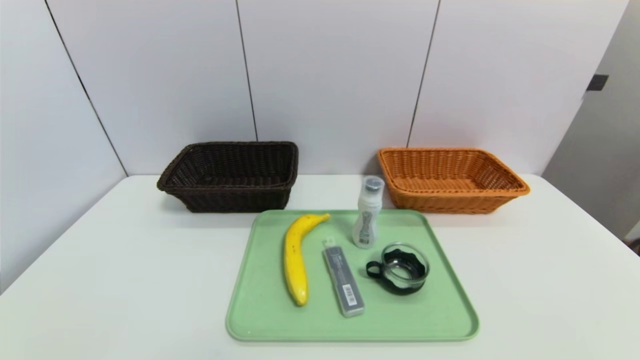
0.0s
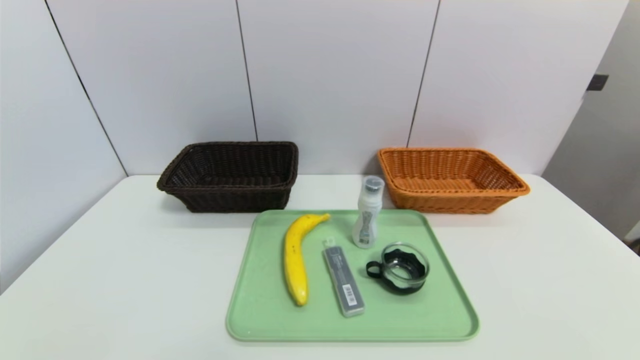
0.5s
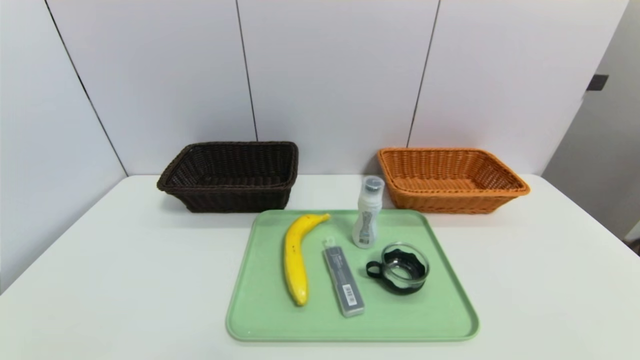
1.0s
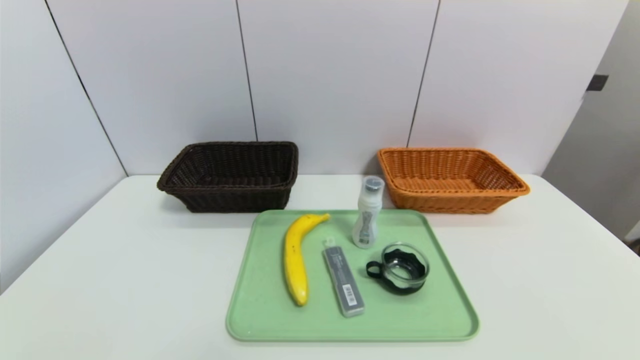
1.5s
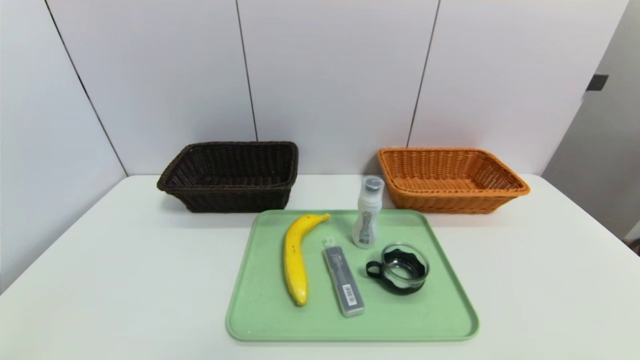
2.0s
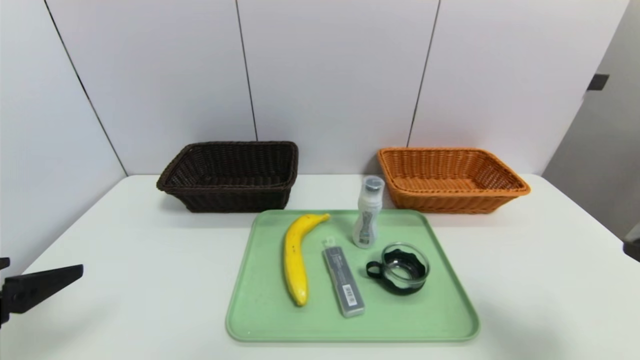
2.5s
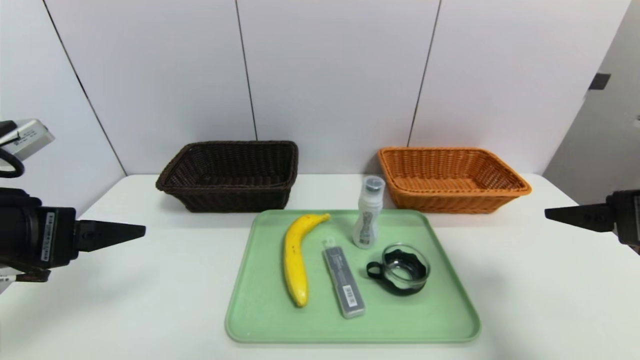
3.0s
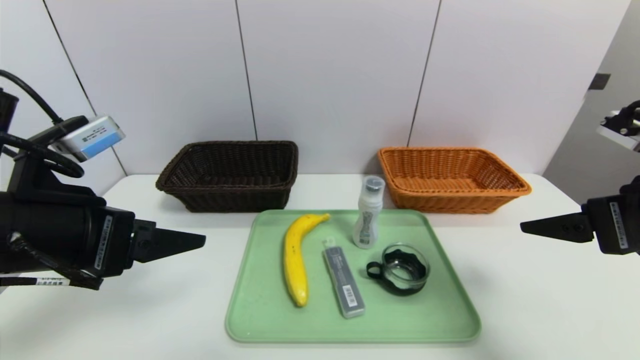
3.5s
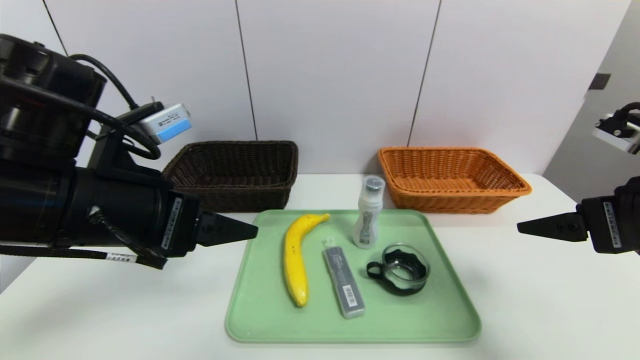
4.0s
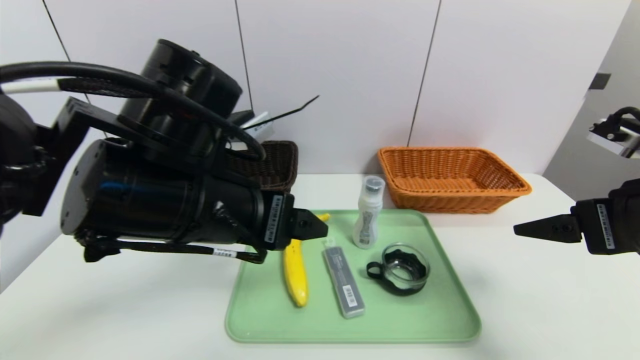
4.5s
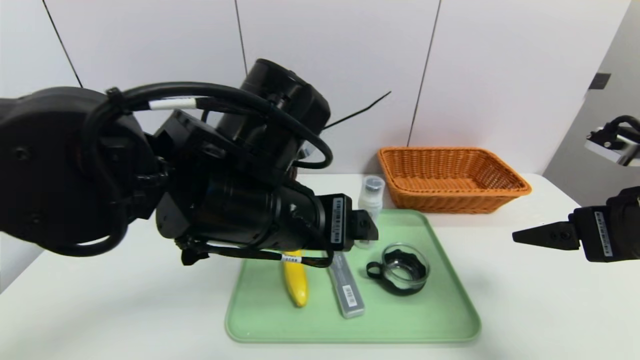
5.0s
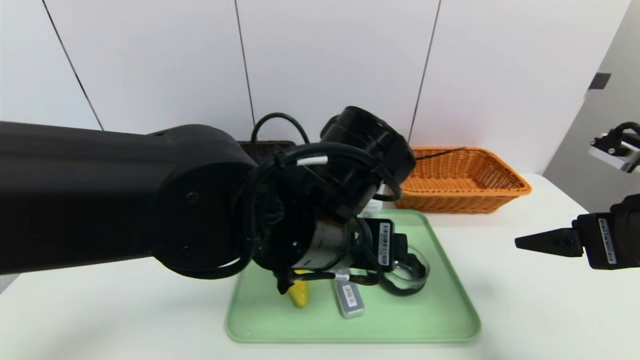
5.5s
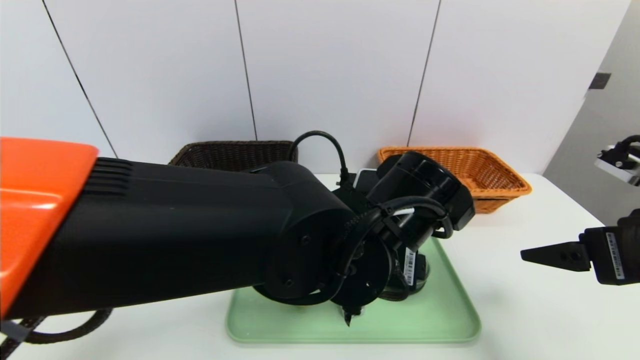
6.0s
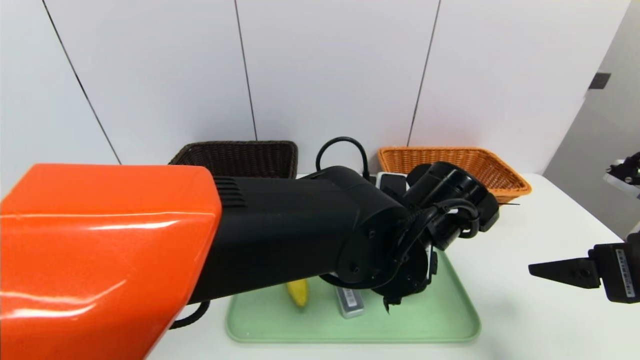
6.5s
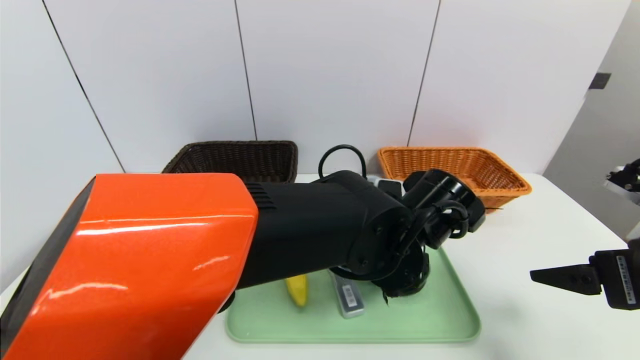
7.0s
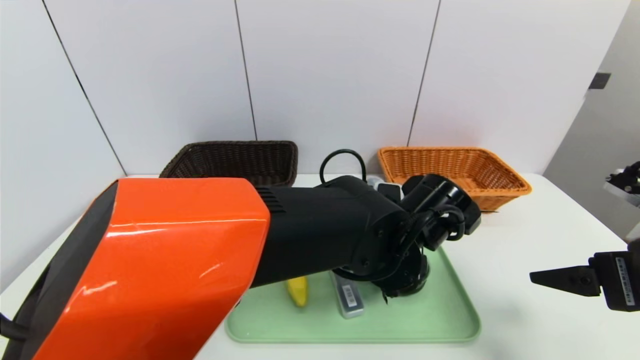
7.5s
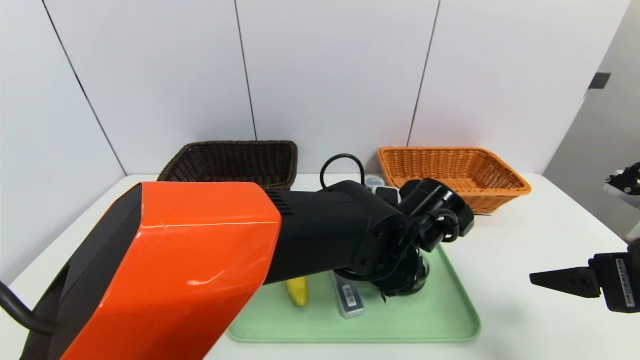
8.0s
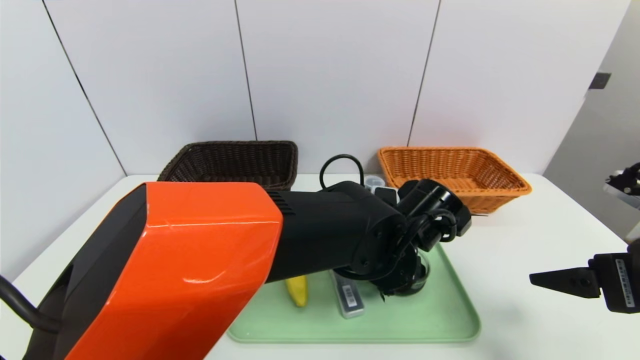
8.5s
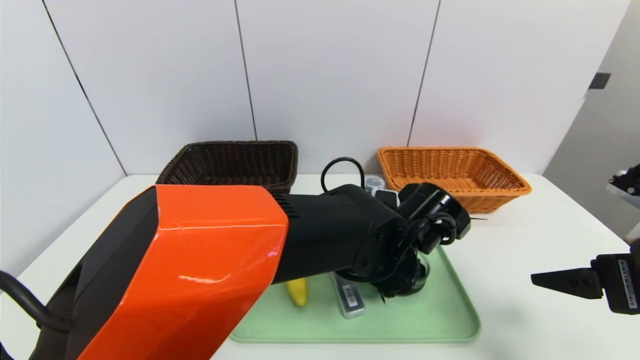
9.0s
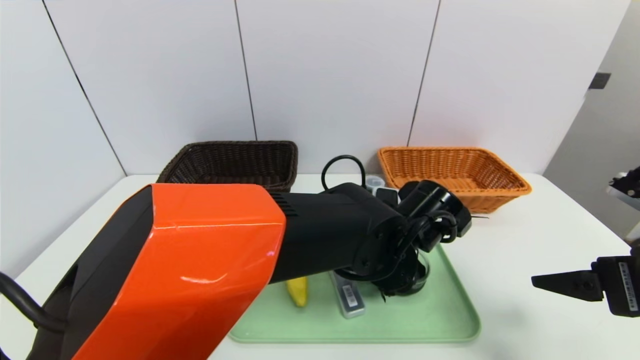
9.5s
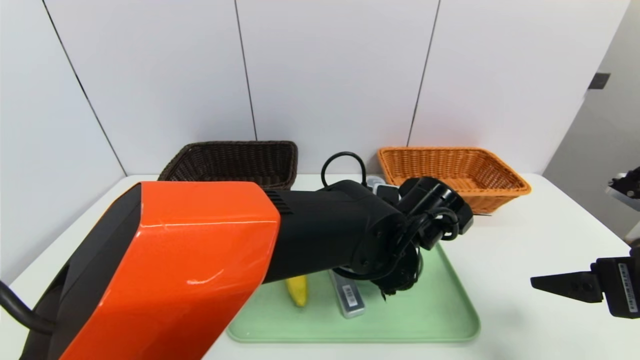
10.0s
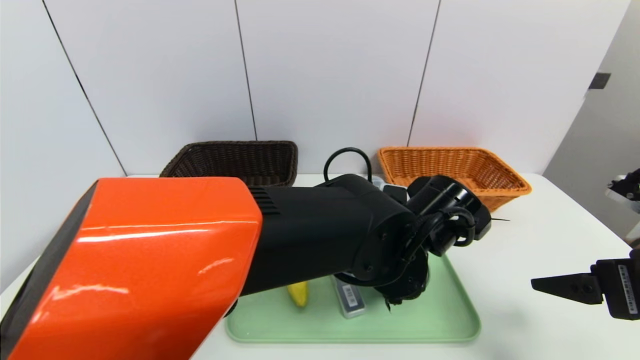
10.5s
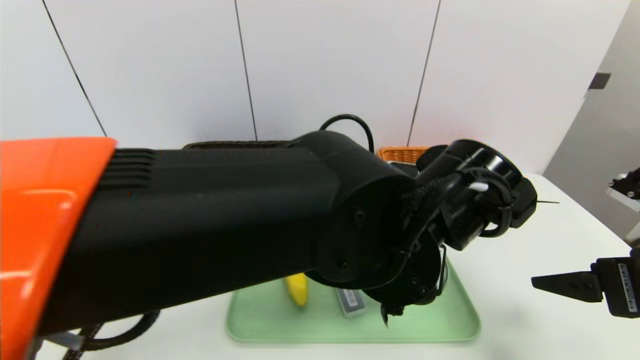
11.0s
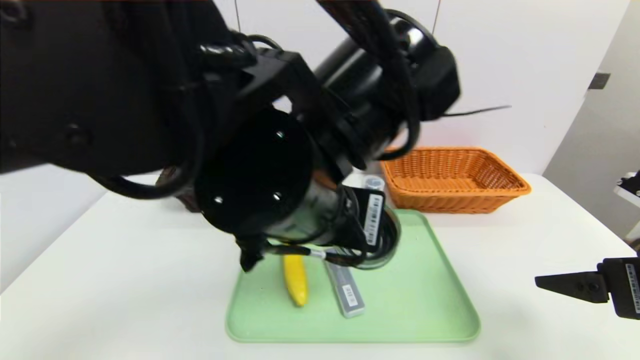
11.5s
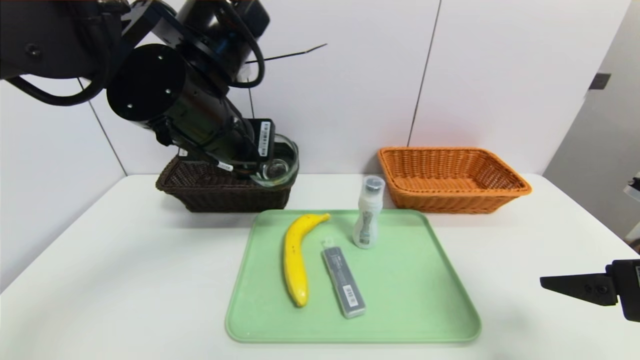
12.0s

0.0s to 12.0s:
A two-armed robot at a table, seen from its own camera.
Task of the whole recording: place the food in the right basket with the right gripper, and place the non food items in the left basket with the left gripper.
2.0s to 4.0s: The left gripper goes some 25 cm forward, to the right and upward. The right gripper goes about 20 cm forward.
4.0s to 6.0s: The left gripper is displaced to the right by roughly 25 cm.
6.0s to 8.0s: The left gripper moves about 10 cm.
8.0s to 10.0s: The left gripper closes.
10.0s to 12.0s: The left gripper goes some 25 cm to the left and upward.

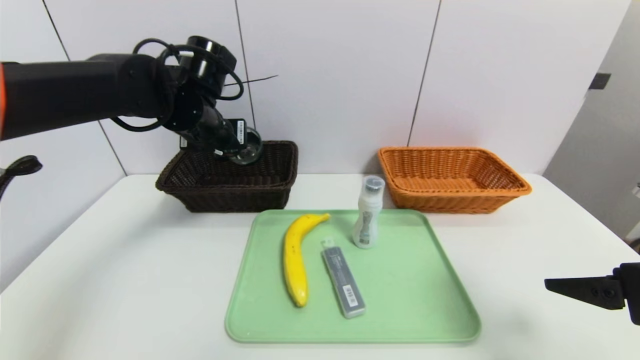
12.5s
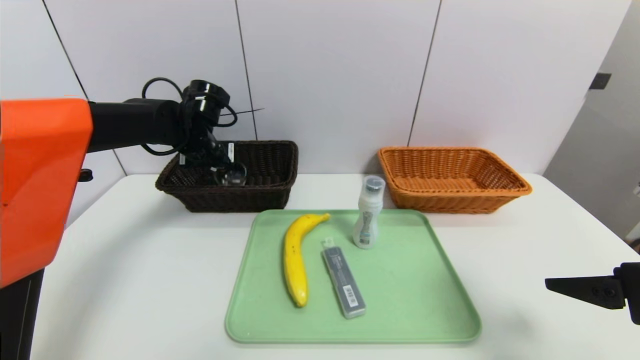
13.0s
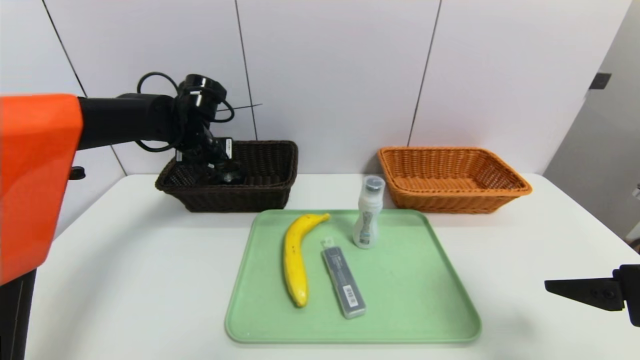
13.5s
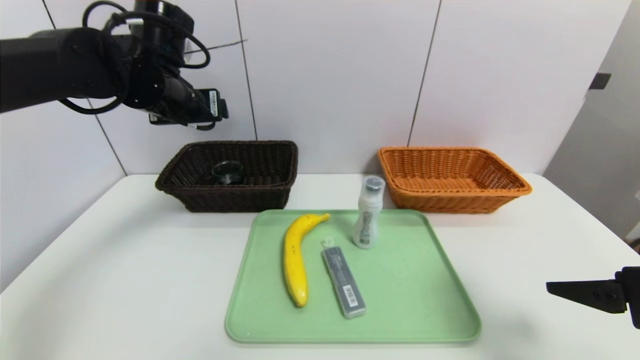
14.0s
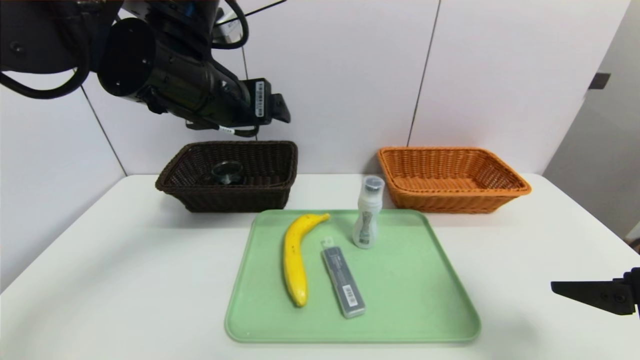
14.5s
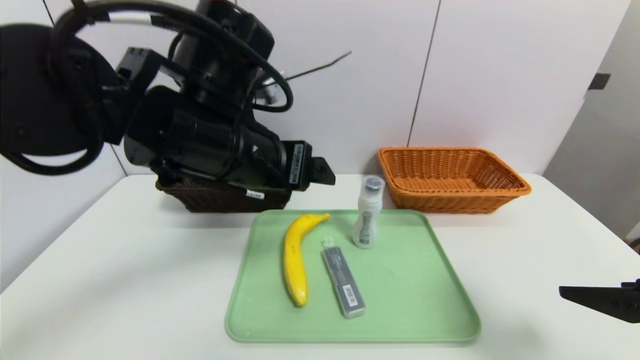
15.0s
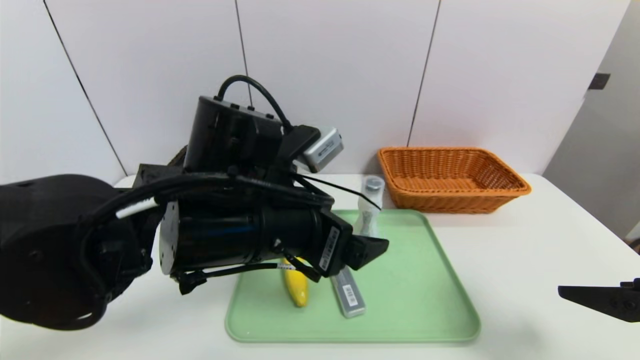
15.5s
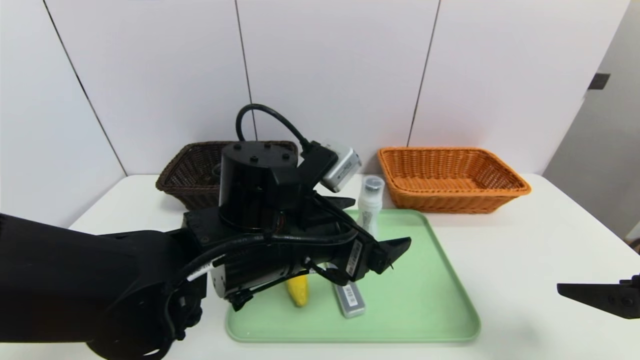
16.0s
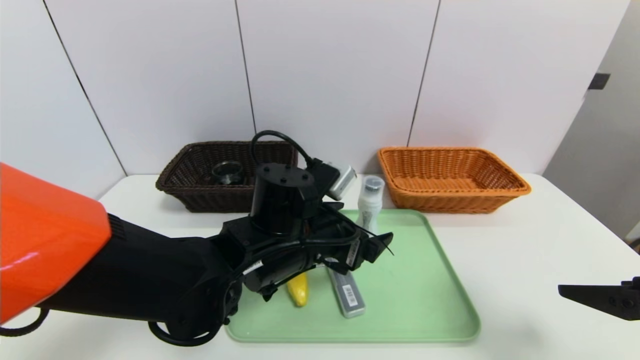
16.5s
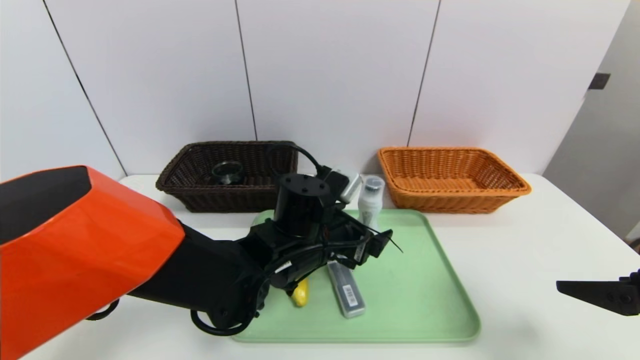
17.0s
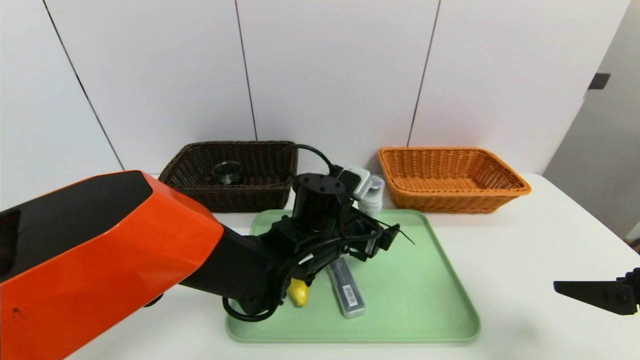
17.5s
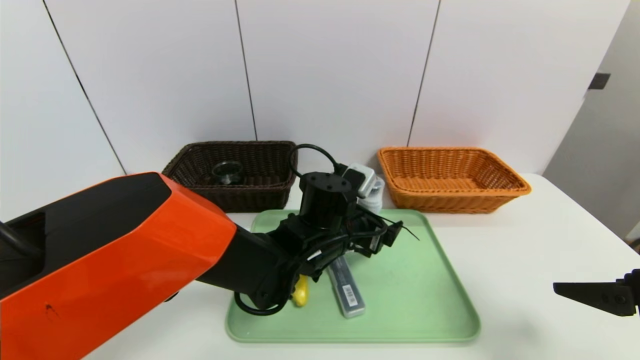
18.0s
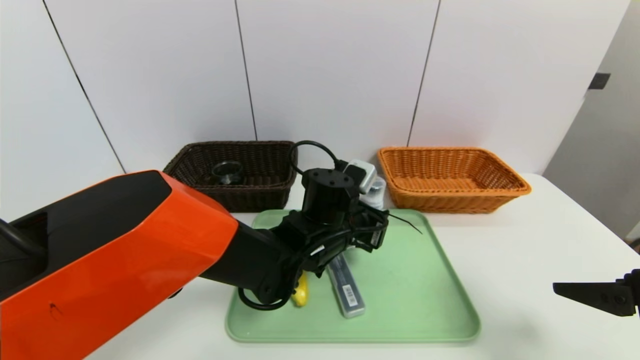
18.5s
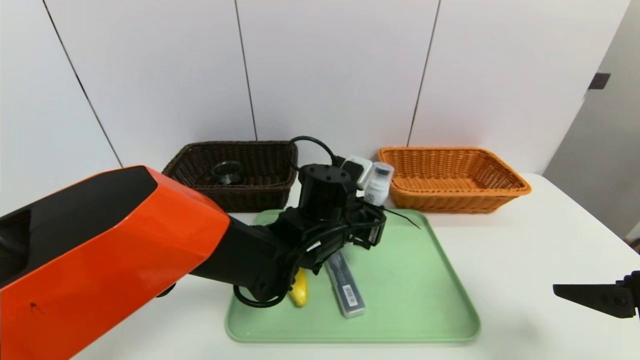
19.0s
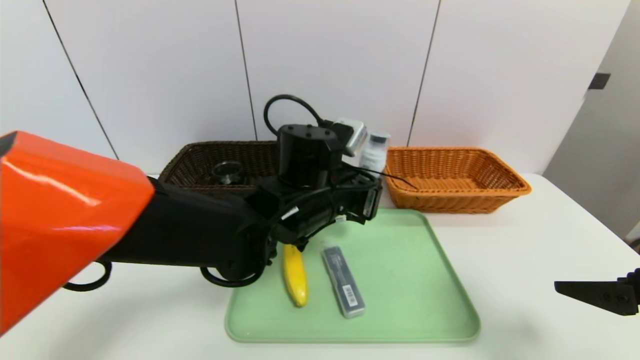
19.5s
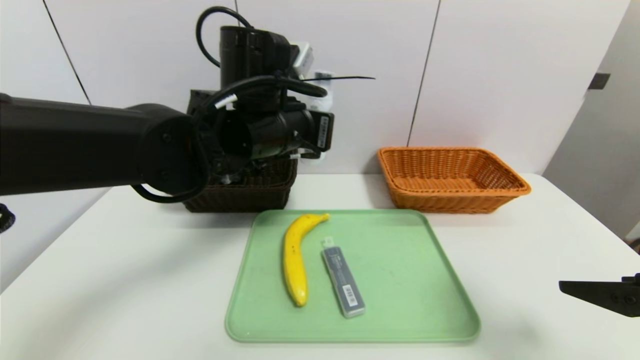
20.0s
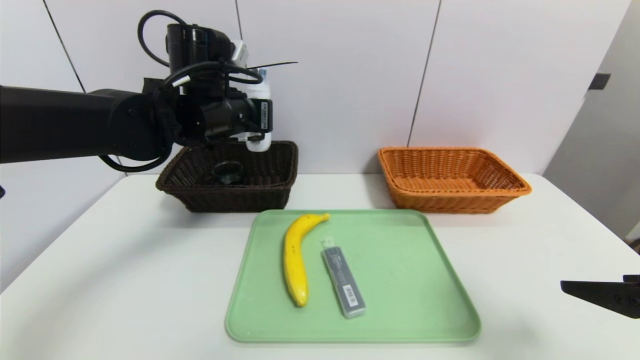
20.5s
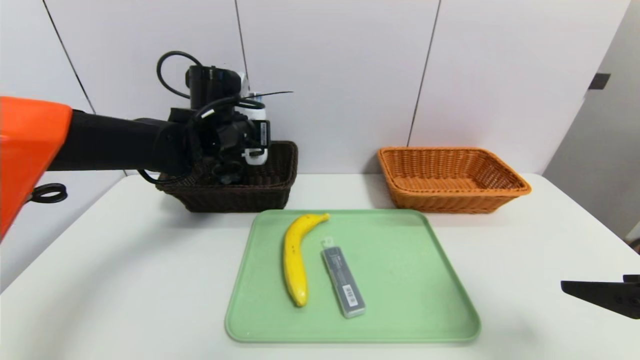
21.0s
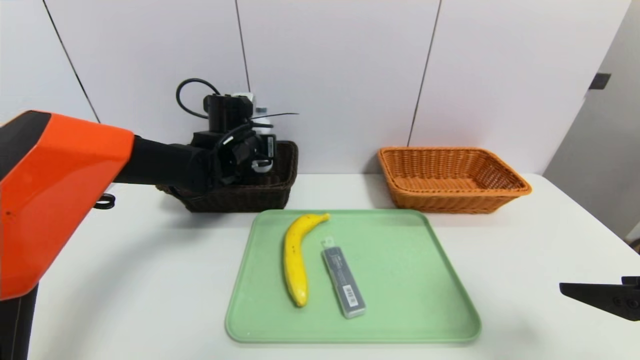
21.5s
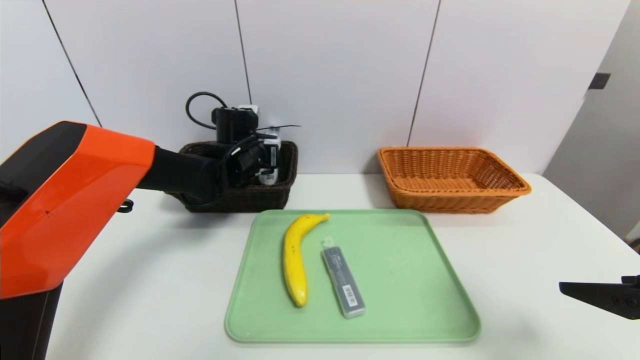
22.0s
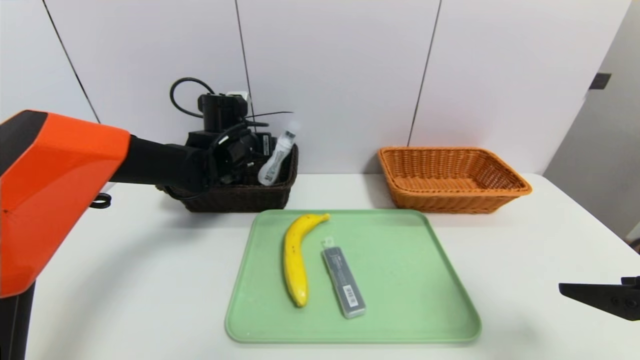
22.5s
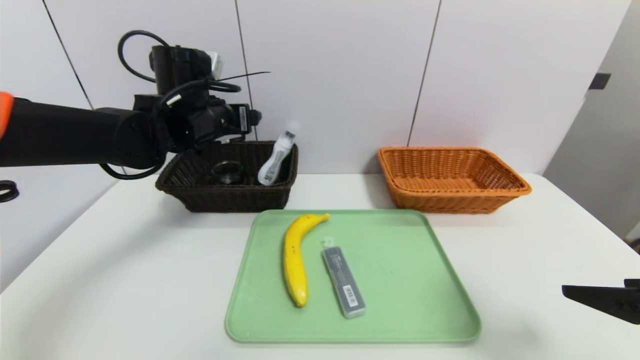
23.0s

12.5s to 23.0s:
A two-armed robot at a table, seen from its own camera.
Task of the whole recording: place the food in the right basket with the right gripper, and place the non food items in the left basket with the left gripper.
Step, 14.0s to 22.0s: Grasp the cleaning agent and put it in the left basket.
12.5s to 14.5s: The left gripper moves backward, upward and to the right, some 15 cm, and opens its fingers.
14.5s to 16.5s: The left gripper travels downward and to the right by some 20 cm.
16.5s to 19.0s: The left gripper moves forward, roughly 5 cm, and closes.
19.0s to 21.0s: The left gripper goes about 20 cm to the left, upward and forward.
21.0s to 23.0s: The left gripper goes downward and returns, approximately 5 cm each way, and opens its fingers.
